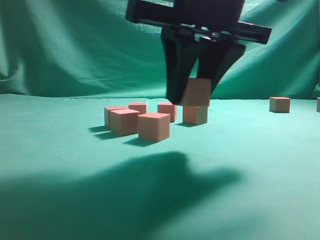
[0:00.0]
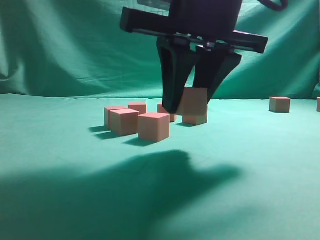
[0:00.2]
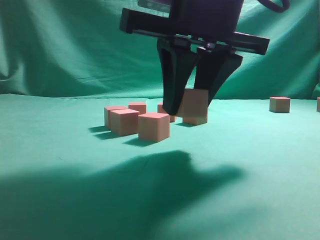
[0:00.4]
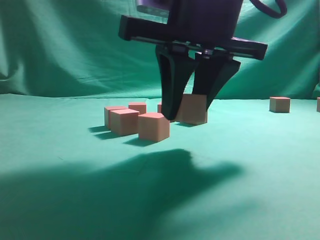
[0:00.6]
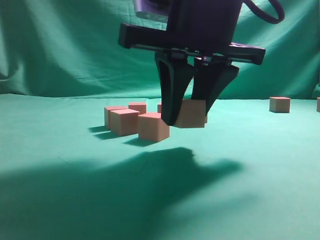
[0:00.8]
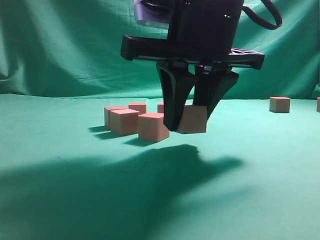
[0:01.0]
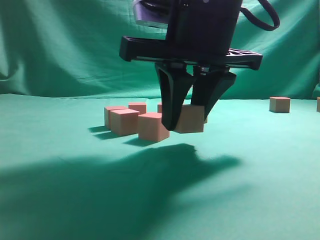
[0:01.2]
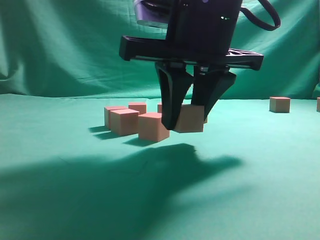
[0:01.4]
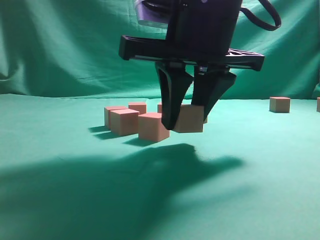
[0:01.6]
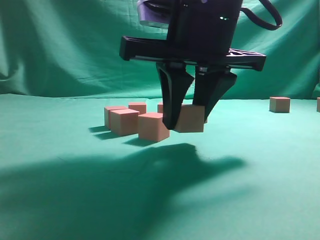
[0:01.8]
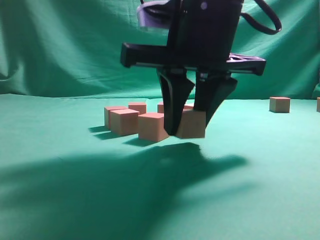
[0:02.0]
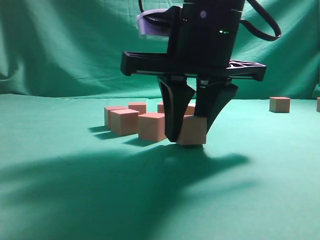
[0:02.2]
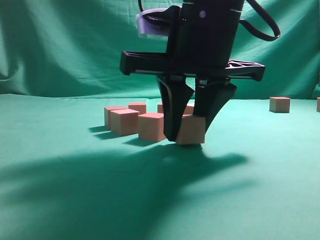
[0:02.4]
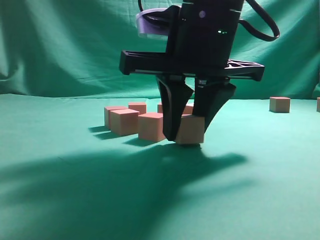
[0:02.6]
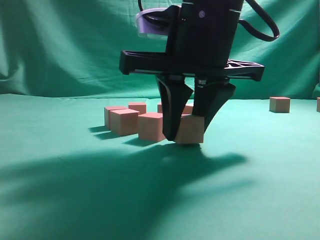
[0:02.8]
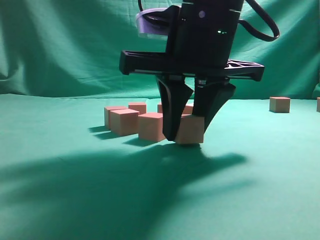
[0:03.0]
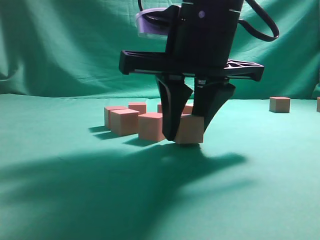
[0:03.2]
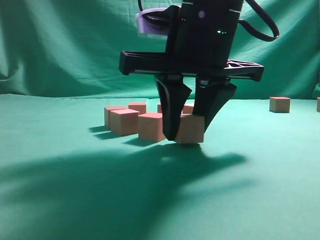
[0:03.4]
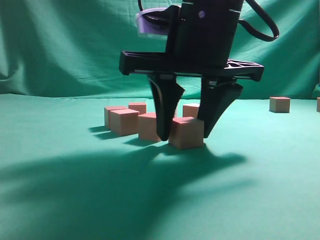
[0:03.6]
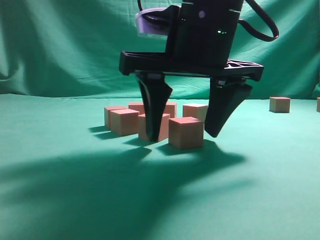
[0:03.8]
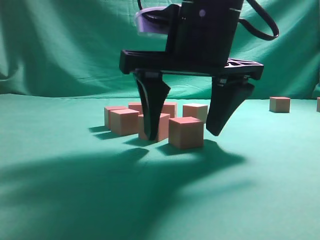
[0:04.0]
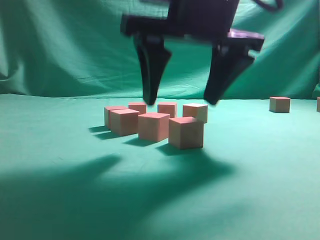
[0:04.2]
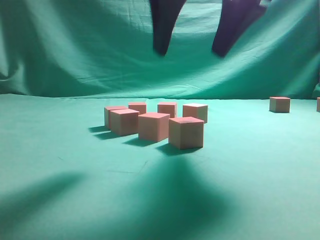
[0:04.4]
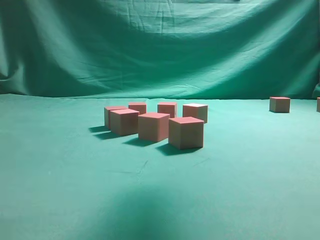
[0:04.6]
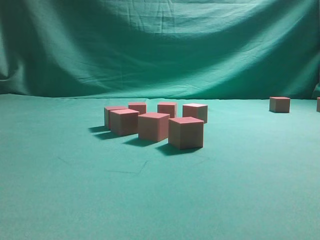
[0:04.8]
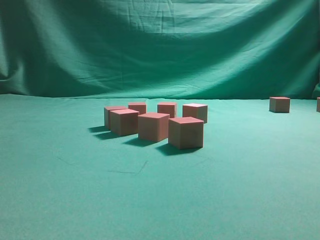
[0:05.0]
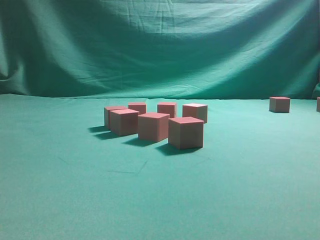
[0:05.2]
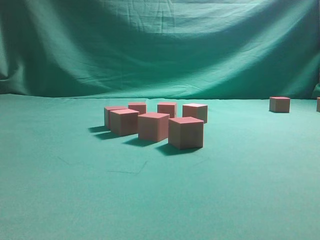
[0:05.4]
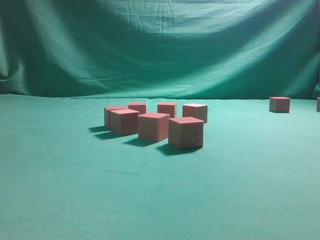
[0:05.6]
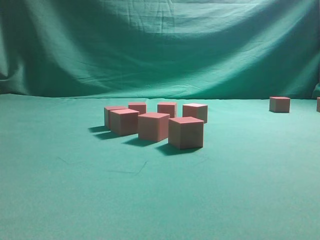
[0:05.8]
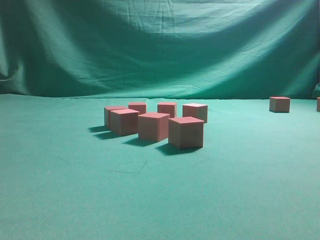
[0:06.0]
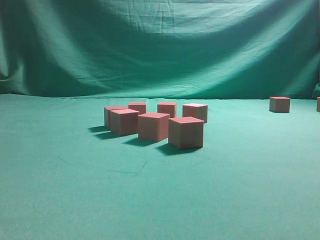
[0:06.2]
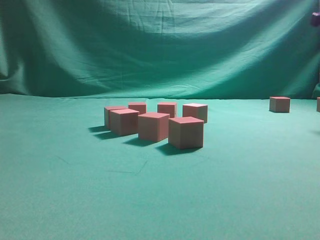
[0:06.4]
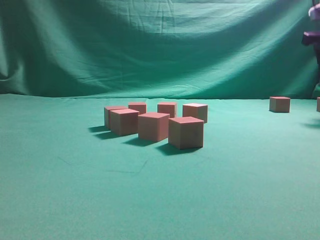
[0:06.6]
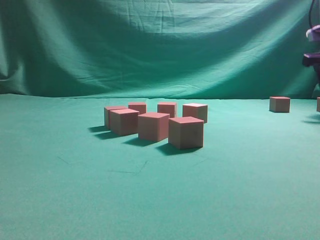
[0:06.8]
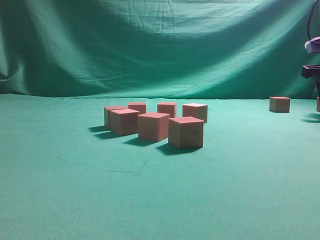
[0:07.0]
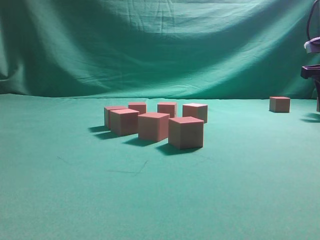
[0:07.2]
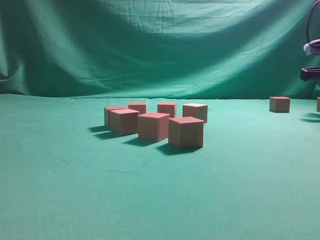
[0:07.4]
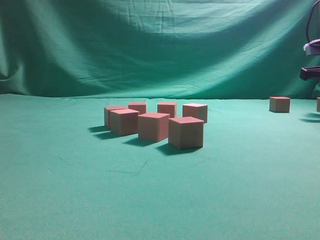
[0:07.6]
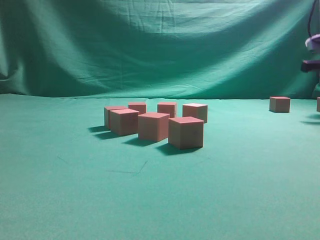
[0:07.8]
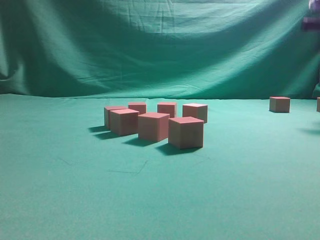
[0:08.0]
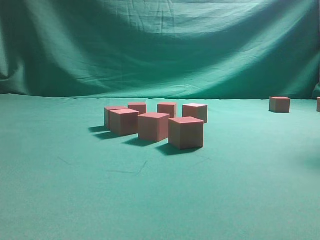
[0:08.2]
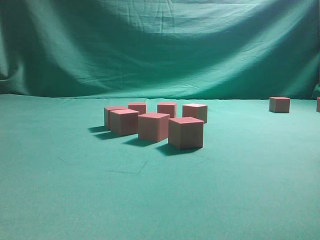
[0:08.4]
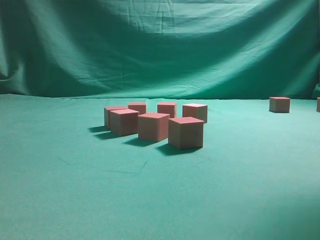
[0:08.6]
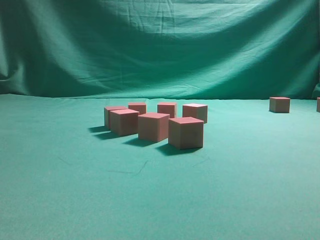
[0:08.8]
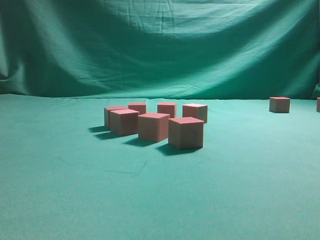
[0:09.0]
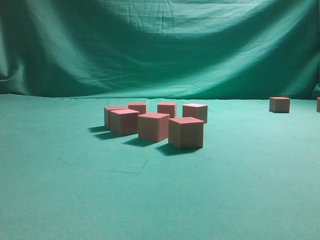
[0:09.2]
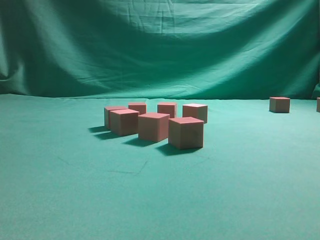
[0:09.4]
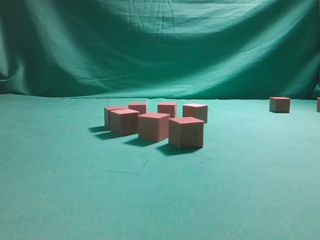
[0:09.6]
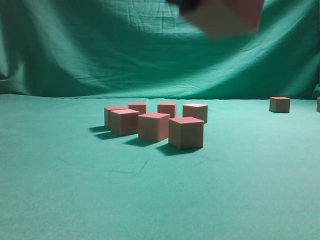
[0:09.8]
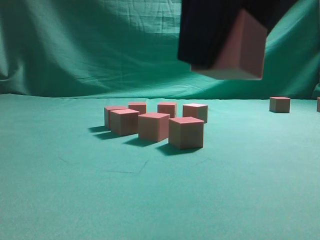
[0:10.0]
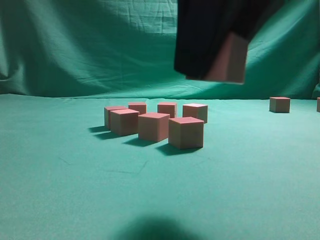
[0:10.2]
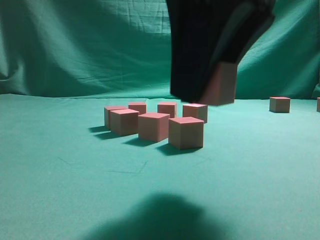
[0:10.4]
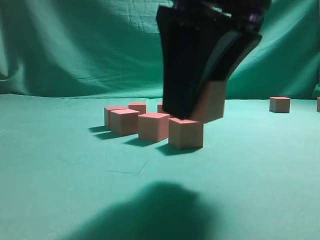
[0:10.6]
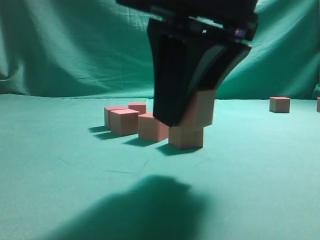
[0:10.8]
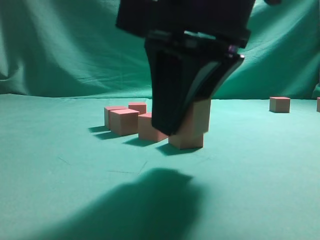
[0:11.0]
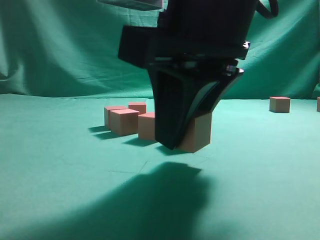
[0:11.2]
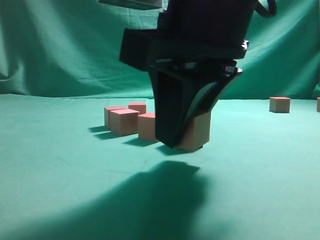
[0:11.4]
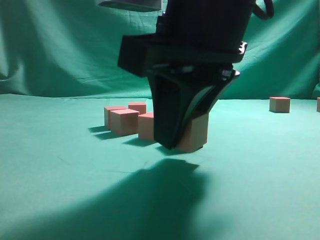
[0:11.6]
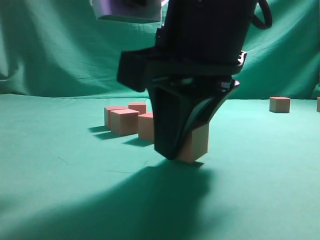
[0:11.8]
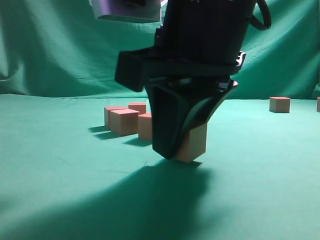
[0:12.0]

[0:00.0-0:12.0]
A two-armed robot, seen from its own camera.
Task of the whole recording: pick up the multiple cubes in two columns one by one and place them in another position on the table.
Step, 0:00.0 to 0:04.2: Place the block at the correct position to assemble the letter S.
Step, 0:04.6 to 0:07.8: Pick up the block on the table.
0:00.0 to 0:01.6: The grippers make only small movements.
0:01.6 to 0:03.0: Both grippers stay about where they are.
0:03.0 to 0:04.4: The right gripper is displaced upward by approximately 10 cm, and opens.
0:04.4 to 0:06.0: The right gripper is displaced to the right by some 25 cm.
0:07.6 to 0:09.0: The right gripper heads backward, upward and to the left, covering about 35 cm.
0:09.0 to 0:10.4: The right gripper goes some 20 cm downward and to the left.
0:10.4 to 0:12.0: The right gripper is displaced downward by about 5 cm.

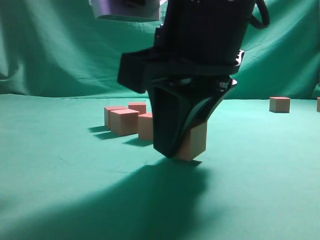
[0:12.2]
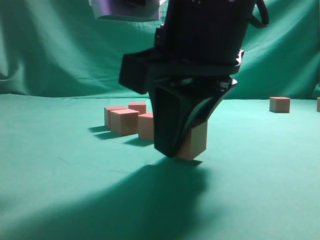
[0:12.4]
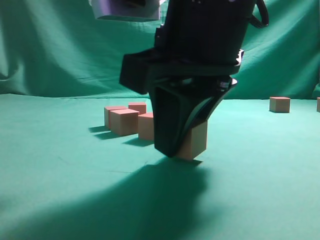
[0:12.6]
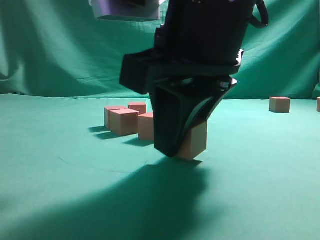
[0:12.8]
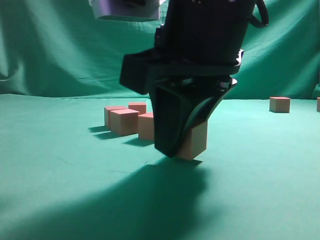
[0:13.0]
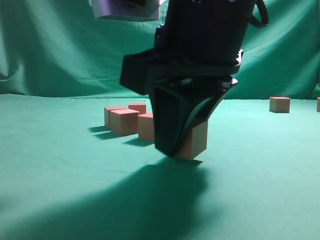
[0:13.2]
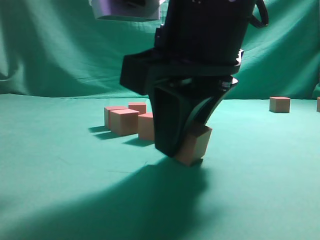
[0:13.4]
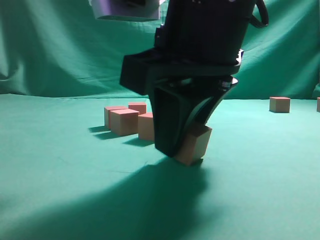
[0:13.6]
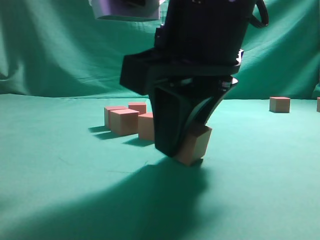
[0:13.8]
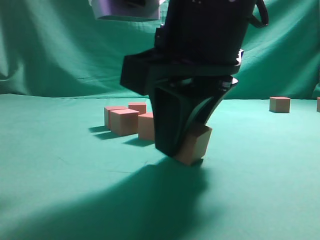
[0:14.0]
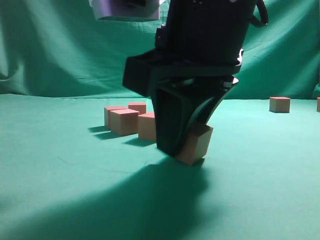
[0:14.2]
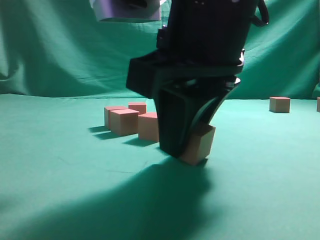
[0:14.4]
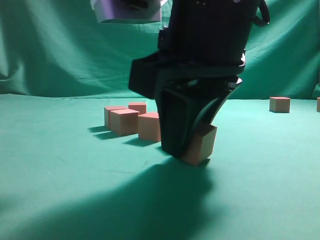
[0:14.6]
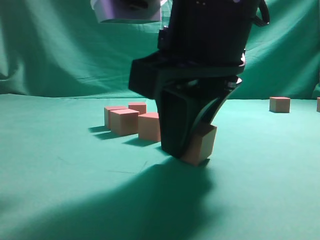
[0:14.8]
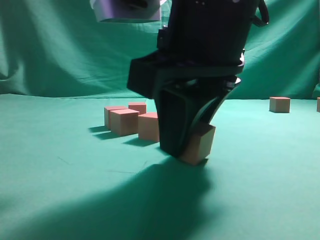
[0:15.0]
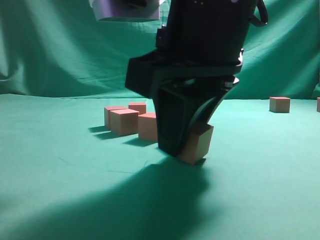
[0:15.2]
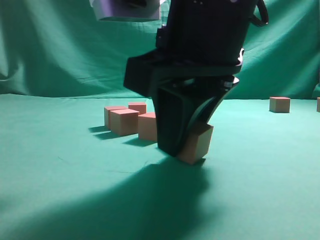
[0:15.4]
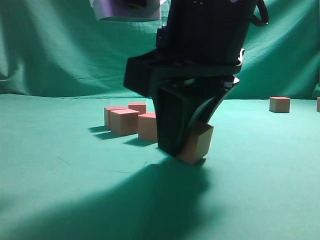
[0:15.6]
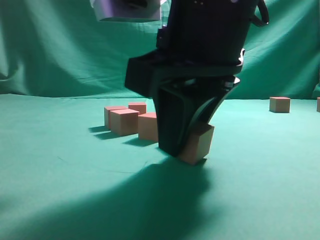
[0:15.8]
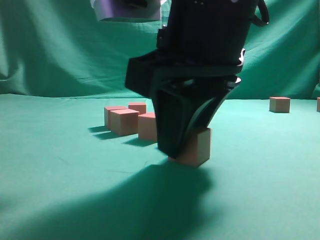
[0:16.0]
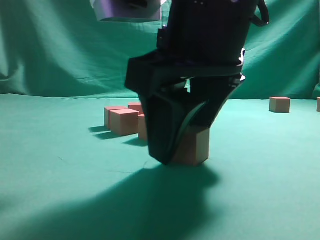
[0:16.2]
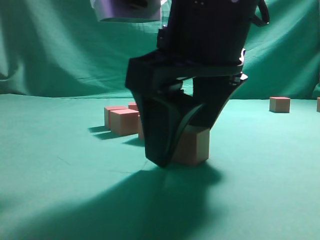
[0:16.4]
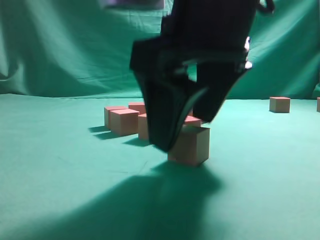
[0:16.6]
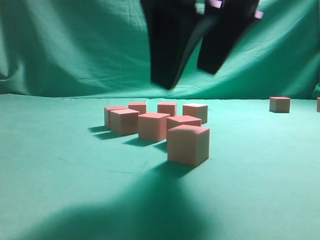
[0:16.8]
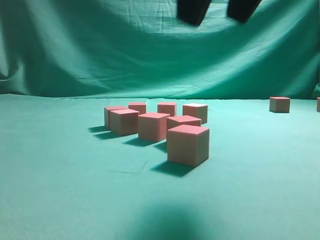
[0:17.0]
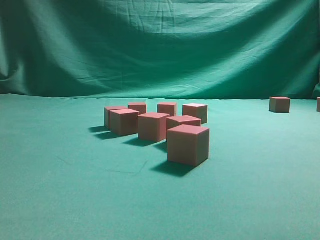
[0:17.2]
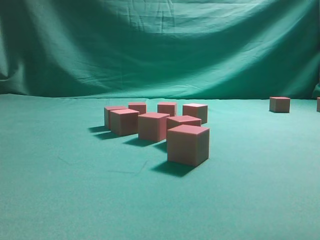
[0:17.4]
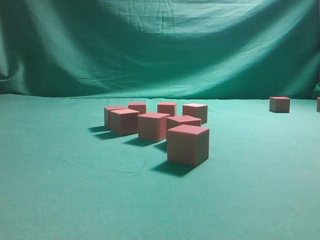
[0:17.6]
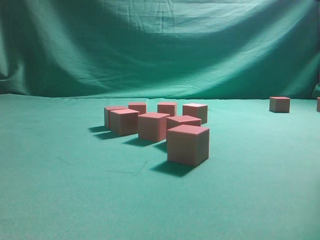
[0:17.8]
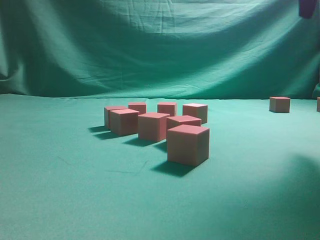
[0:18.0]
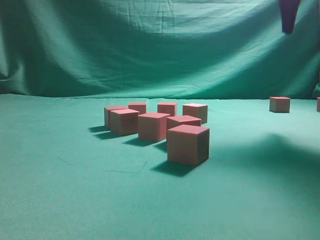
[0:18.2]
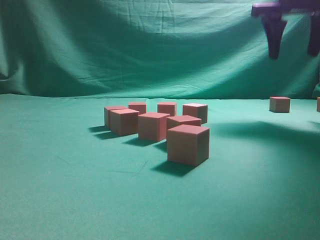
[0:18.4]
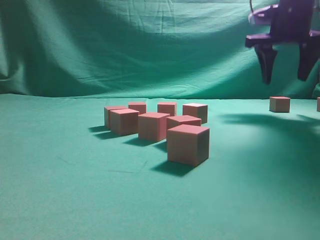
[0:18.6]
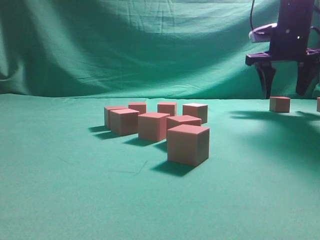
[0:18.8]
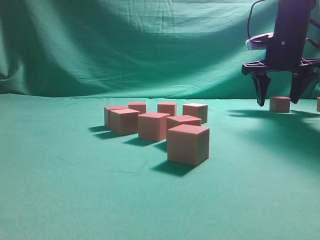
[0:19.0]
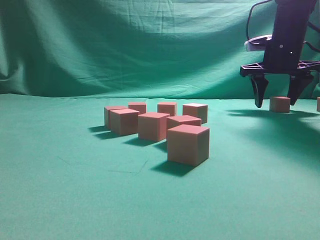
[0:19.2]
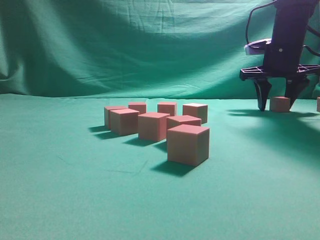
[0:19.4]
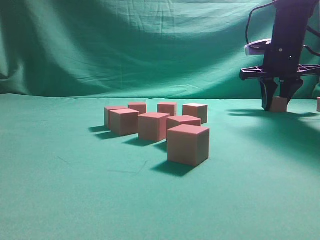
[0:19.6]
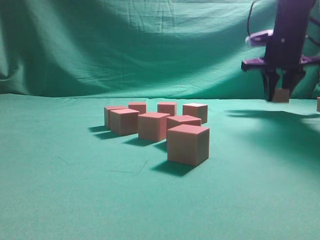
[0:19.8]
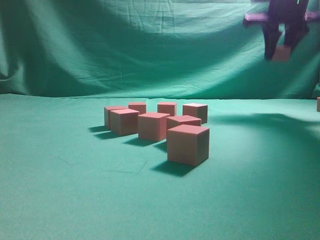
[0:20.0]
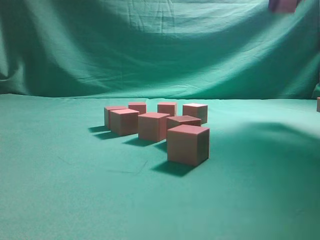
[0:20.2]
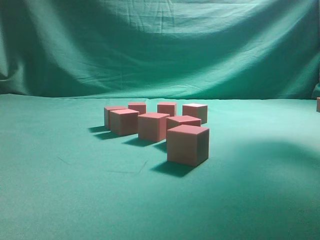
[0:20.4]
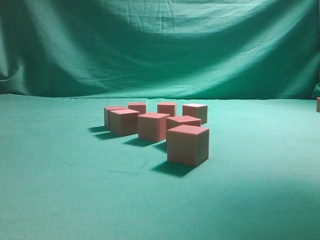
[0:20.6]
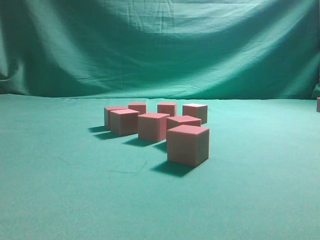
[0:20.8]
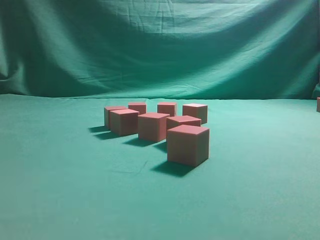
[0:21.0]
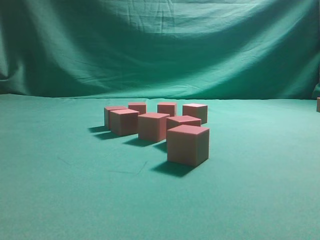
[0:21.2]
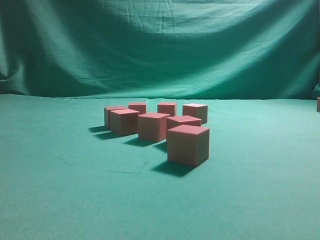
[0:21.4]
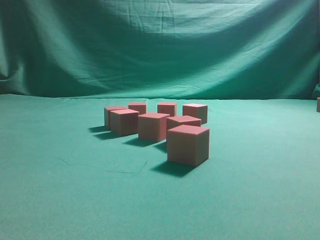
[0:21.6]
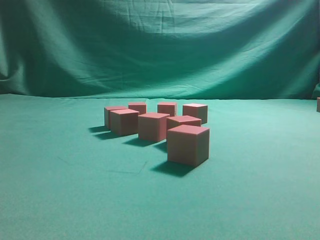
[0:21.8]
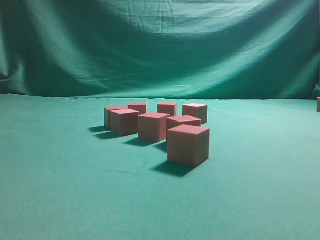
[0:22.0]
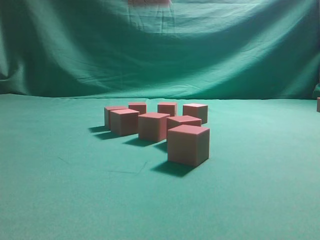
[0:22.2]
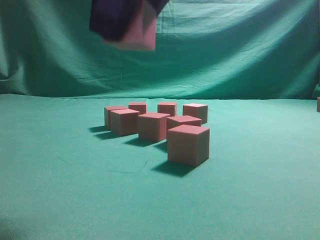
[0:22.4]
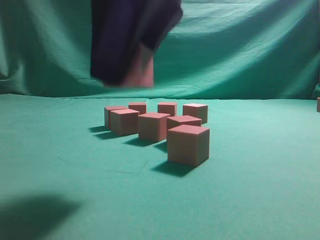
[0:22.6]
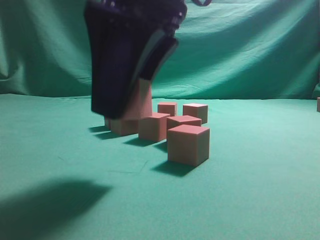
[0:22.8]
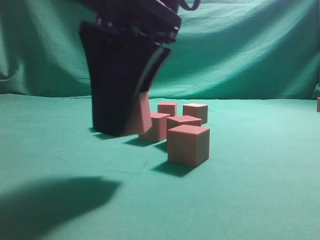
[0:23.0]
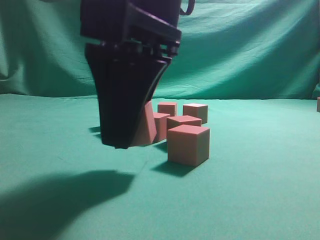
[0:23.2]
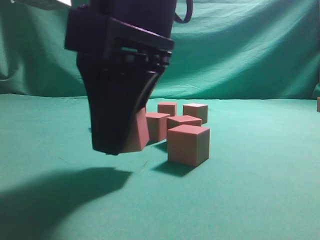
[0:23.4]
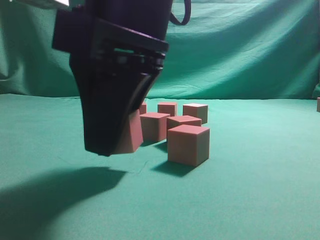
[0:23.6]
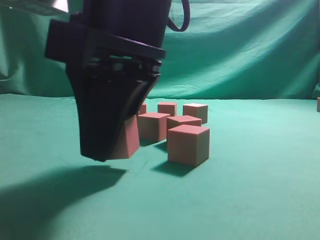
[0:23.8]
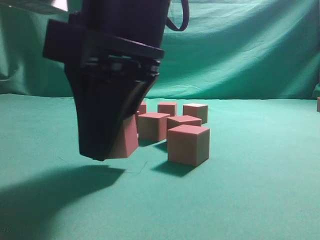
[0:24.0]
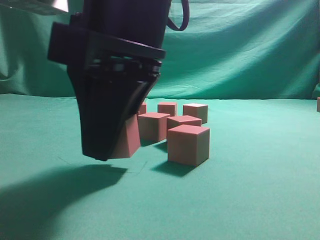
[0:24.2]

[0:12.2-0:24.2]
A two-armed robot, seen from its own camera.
Task of the whole recording: pick up the multiple cubes in two columns one by one and place them in another position on the table.
Step, 0:12.2 to 0:16.8: Place the block at the correct position to assemble the letter S.
Step, 0:17.0 to 0:19.8: Pick up the block on the table.
0:12.2 to 0:15.2: Both grippers stay about where they are.
0:15.2 to 0:16.6: The right gripper opens.
0:16.6 to 0:18.2: The right gripper moves to the right, forward and upward, roughly 25 cm.
0:18.2 to 0:19.8: The right gripper travels forward and downward by approximately 15 cm, and closes its fingers.
0:19.8 to 0:21.2: The right gripper goes roughly 35 cm backward and upward.
0:21.2 to 0:22.6: The right gripper moves to the left and downward, about 25 cm.
0:22.6 to 0:24.2: The right gripper shifts about 5 cm downward.
